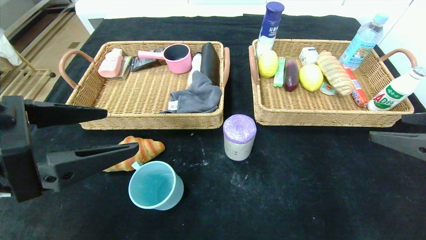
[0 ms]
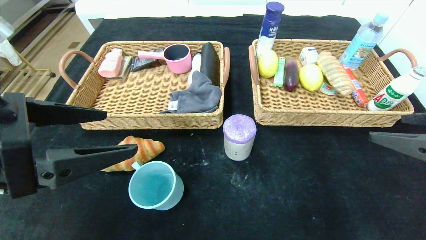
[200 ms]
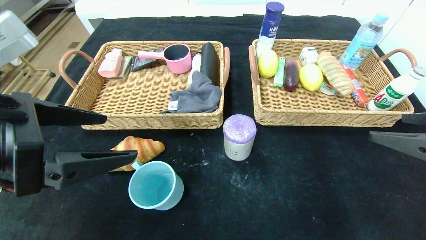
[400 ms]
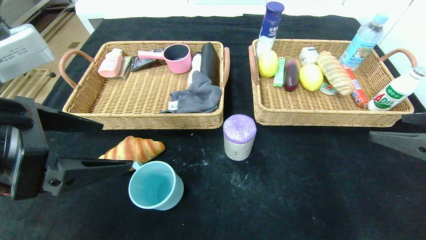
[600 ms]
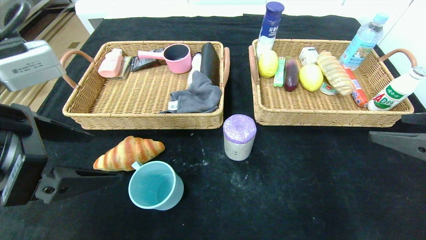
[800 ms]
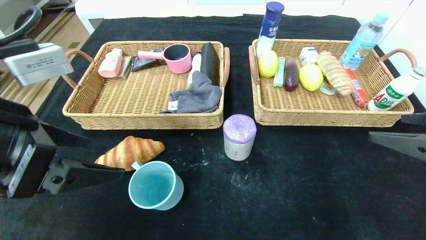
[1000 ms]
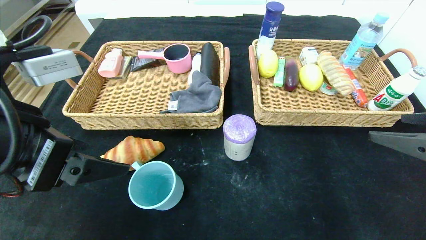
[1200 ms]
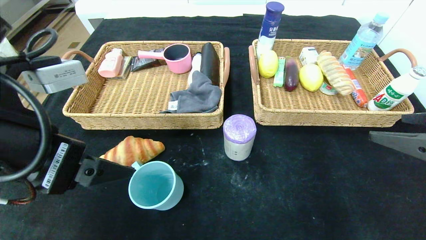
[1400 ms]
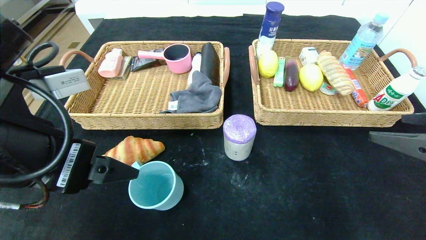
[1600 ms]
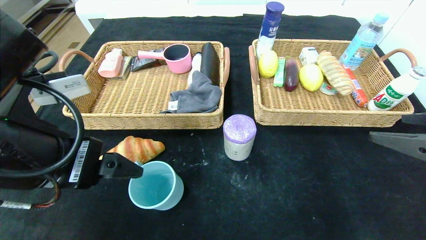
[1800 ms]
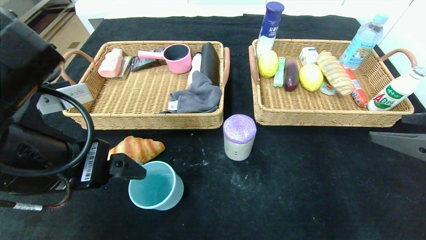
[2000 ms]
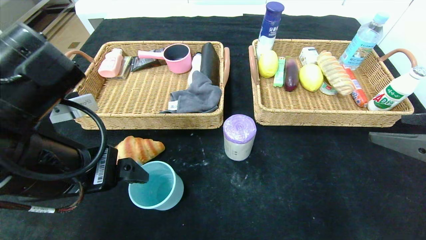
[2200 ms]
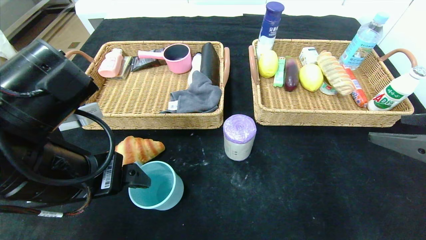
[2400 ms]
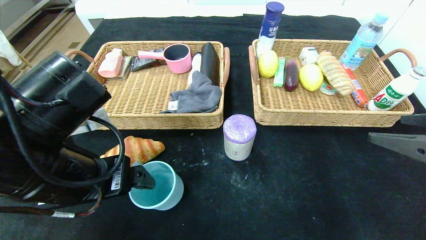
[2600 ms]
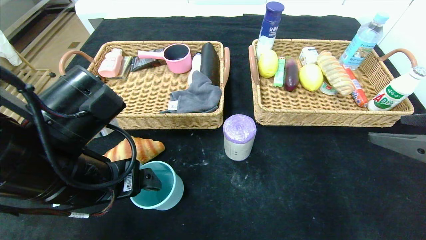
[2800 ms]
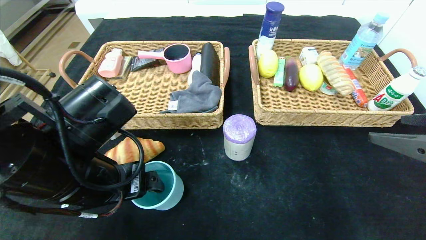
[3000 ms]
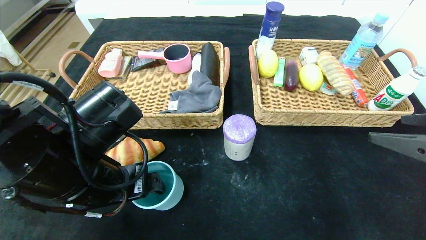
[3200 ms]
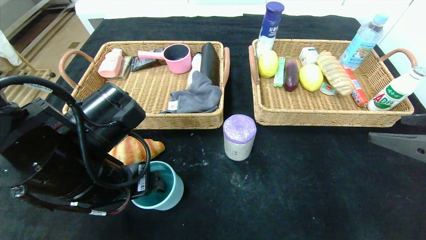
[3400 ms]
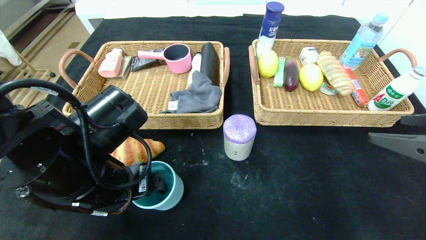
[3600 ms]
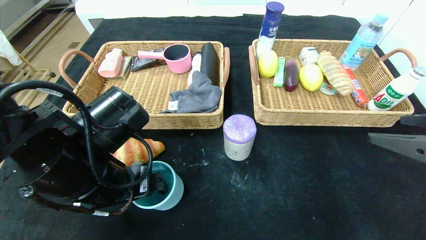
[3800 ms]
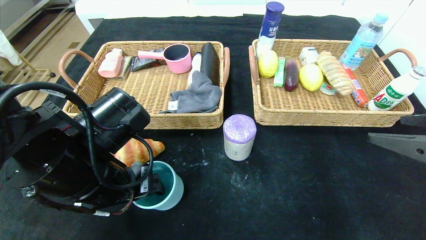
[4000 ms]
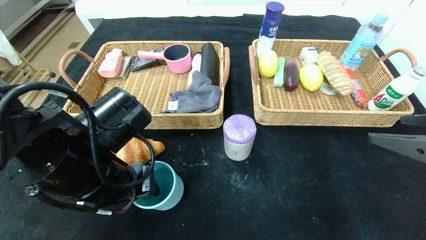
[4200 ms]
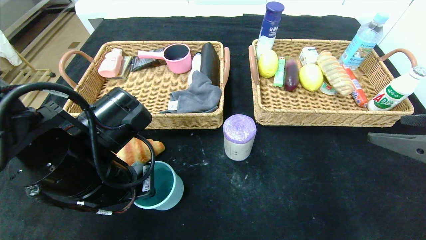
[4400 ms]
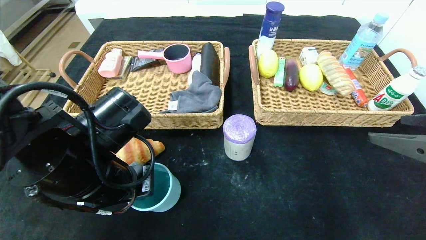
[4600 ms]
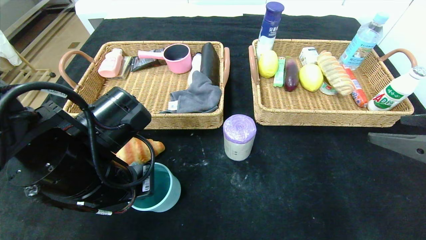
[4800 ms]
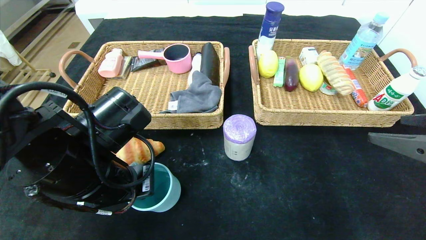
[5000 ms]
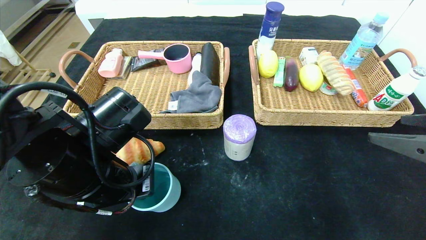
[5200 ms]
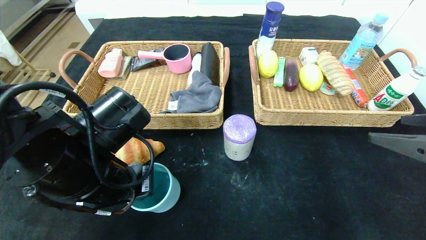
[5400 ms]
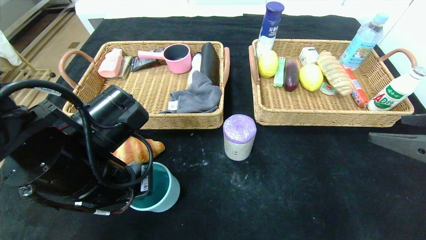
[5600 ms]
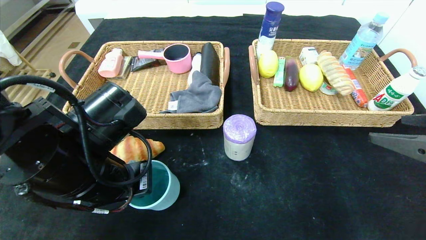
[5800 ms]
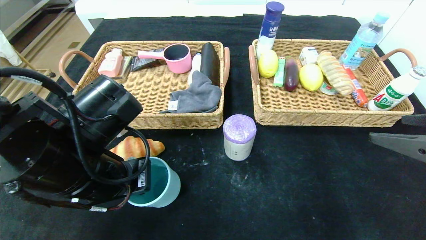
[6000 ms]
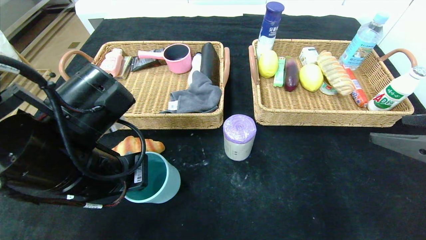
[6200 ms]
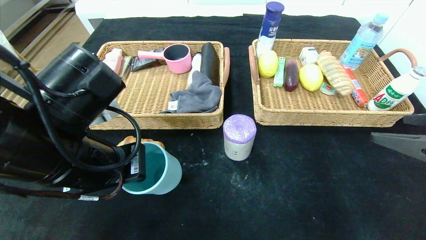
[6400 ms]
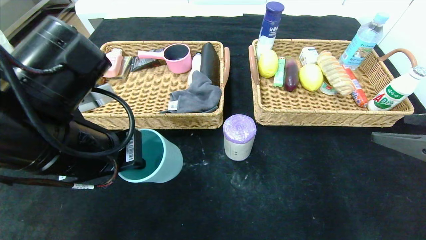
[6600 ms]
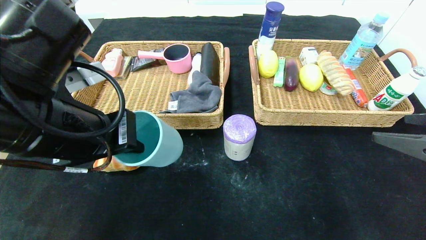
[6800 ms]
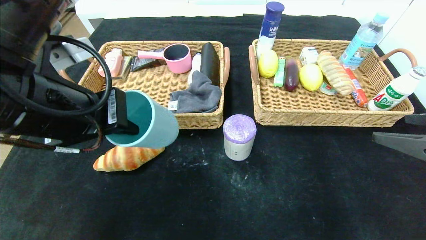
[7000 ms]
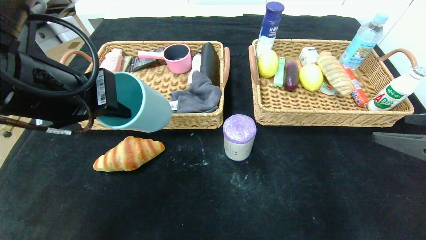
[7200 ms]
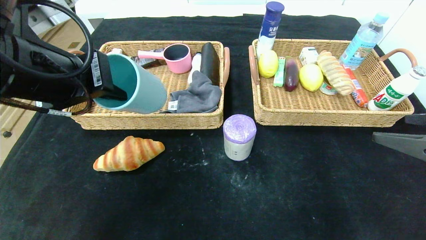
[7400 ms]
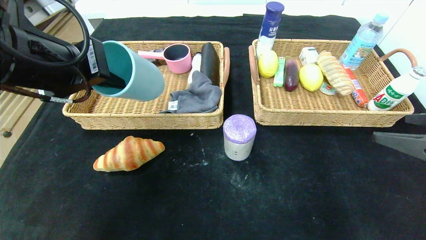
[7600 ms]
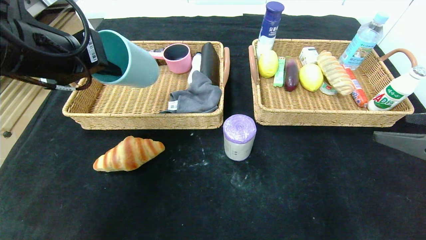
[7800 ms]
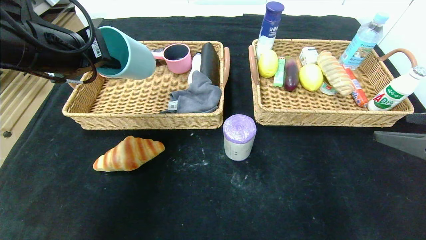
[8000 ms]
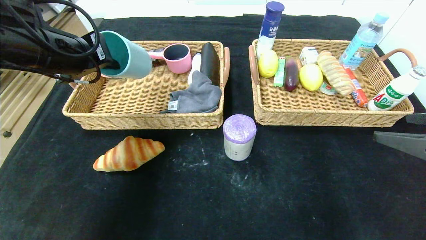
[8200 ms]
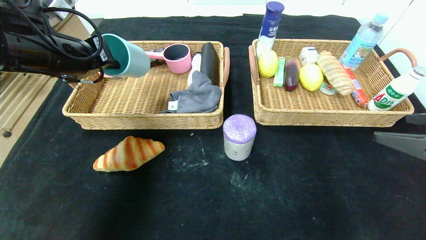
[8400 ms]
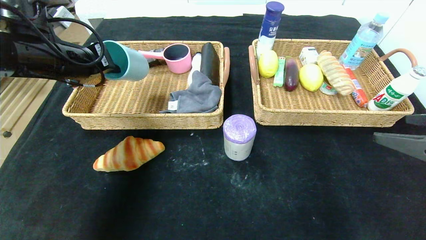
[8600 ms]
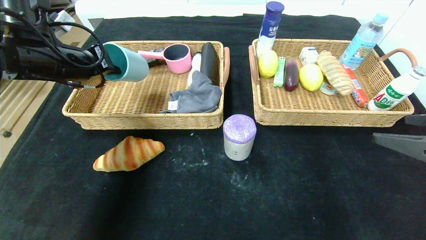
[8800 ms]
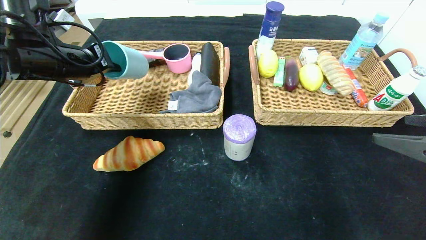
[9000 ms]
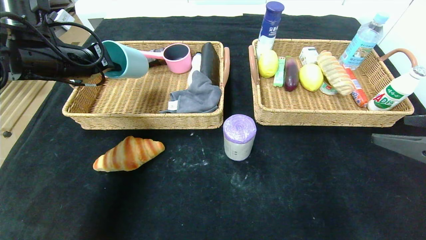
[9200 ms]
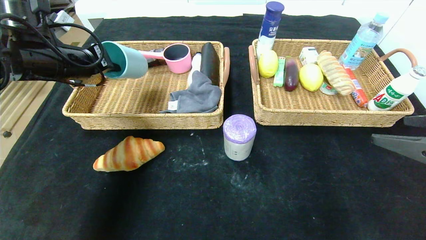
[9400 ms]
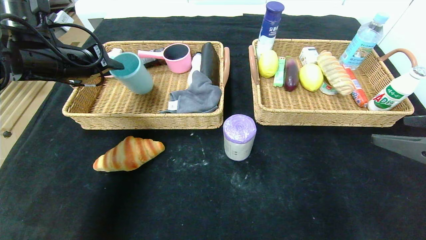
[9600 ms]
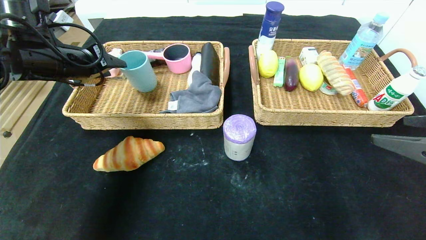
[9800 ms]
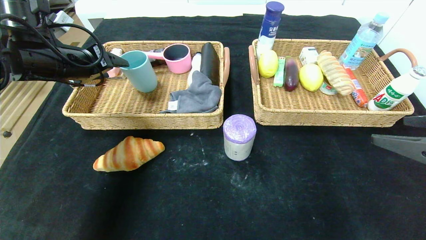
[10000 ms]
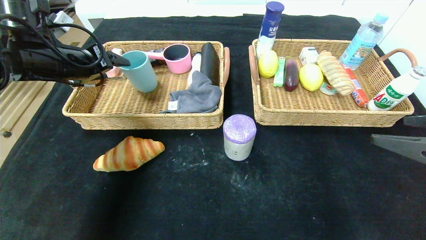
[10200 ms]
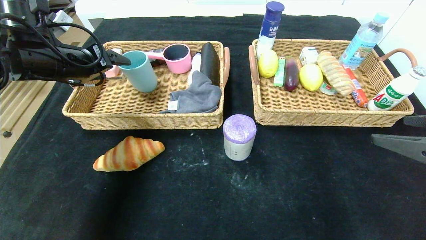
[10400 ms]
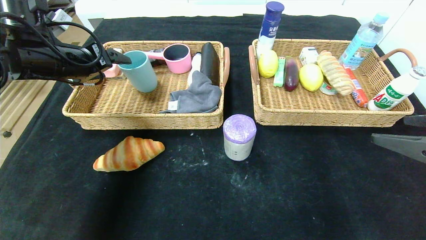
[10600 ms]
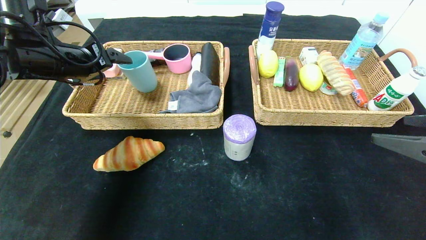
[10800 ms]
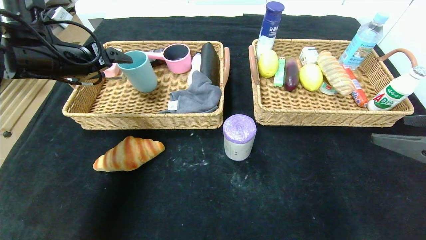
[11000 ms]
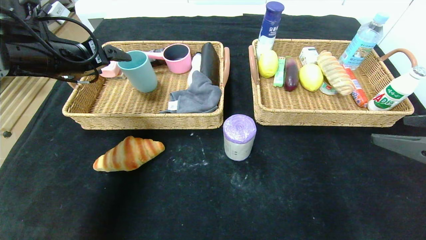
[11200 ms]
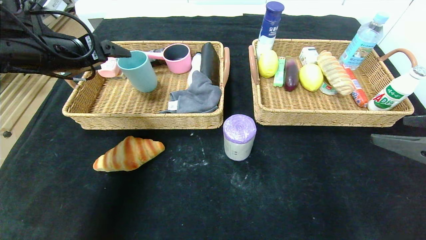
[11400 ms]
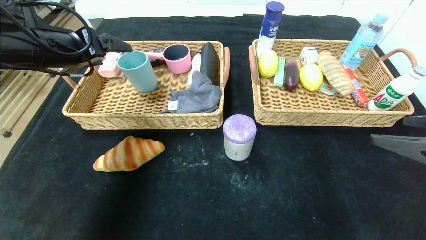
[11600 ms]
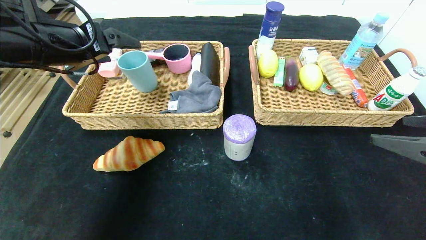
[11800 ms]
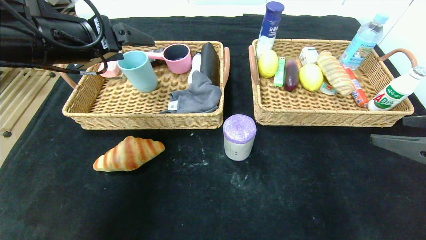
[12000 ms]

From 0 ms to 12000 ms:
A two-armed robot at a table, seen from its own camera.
Step, from 0 ms to 10400 ms: Grasp the blue cup and put it in the left basket.
From 1600 ms to 3000 ms: The left gripper heads downward, covering about 5 cm.
From 3000 ms to 4400 ms: The left gripper closes up.
From 4400 ms to 6000 ms: The grippers make only small movements.
From 6000 ms to 7600 ms: The left gripper travels upward by some 10 cm.
From 7600 ms to 9000 ms: The left gripper heads forward and to the left, covering approximately 15 cm.
From 9000 ms to 10400 ms: The left gripper opens its fingers.
From 10400 ms to 12000 ms: The left gripper goes about 10 cm backward and to the right.

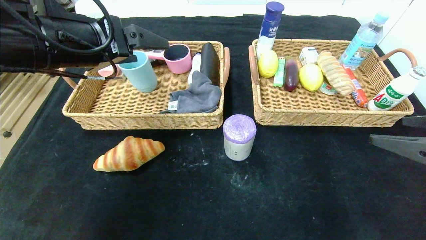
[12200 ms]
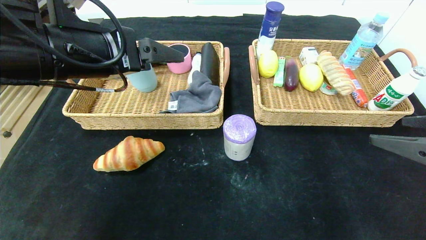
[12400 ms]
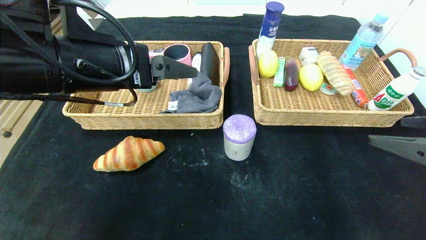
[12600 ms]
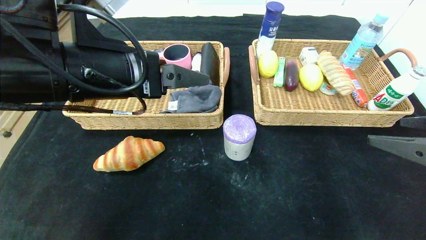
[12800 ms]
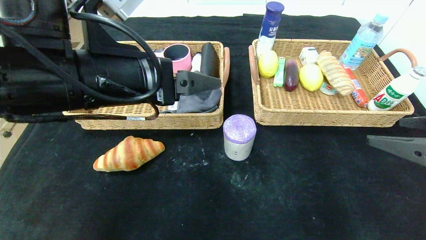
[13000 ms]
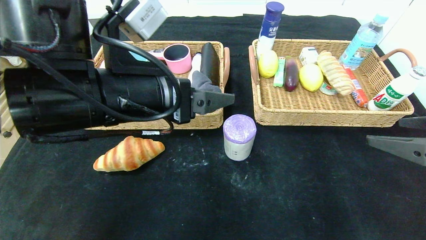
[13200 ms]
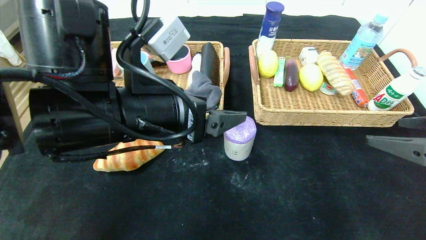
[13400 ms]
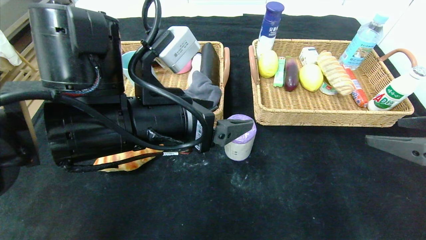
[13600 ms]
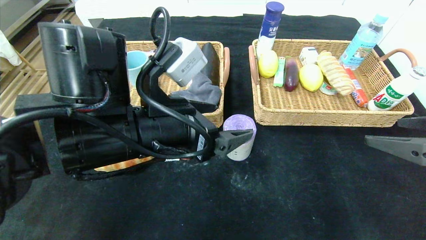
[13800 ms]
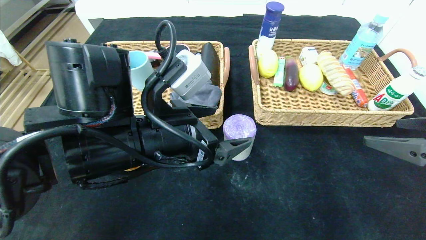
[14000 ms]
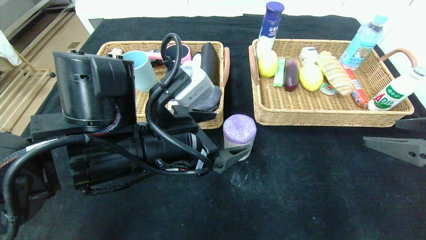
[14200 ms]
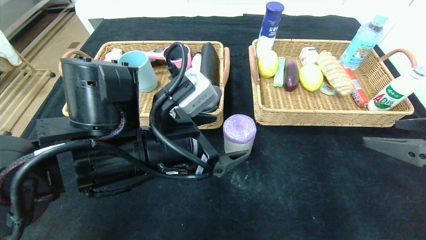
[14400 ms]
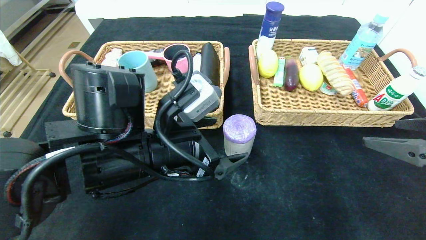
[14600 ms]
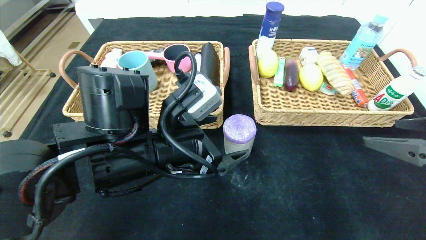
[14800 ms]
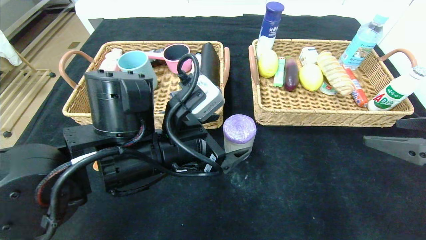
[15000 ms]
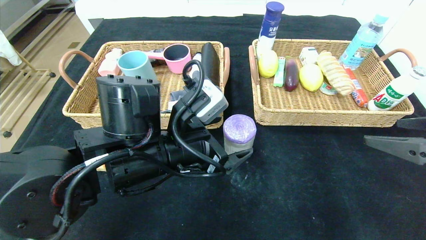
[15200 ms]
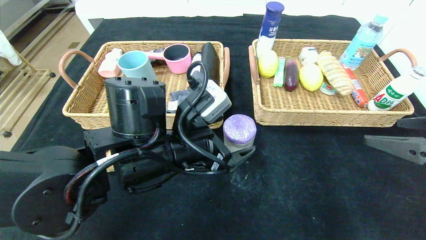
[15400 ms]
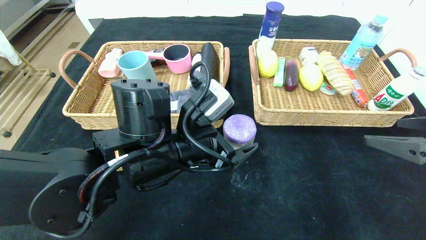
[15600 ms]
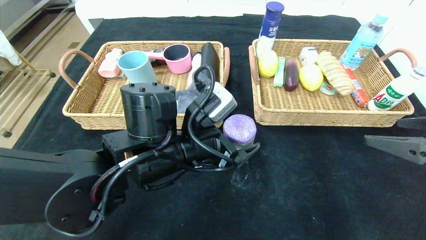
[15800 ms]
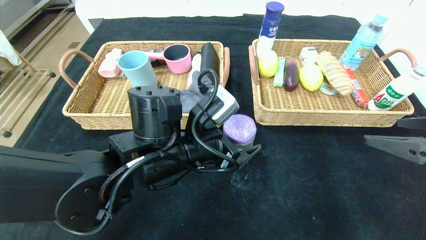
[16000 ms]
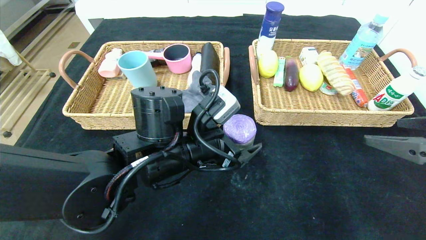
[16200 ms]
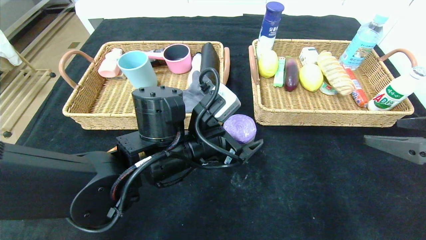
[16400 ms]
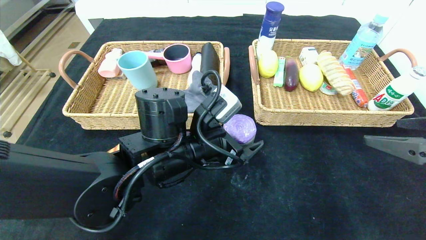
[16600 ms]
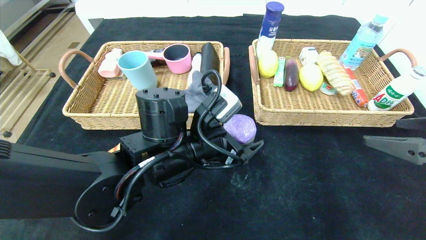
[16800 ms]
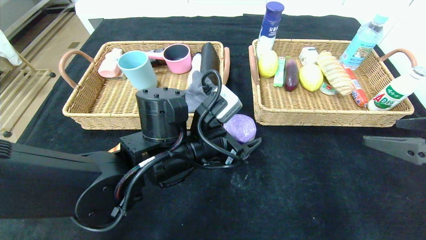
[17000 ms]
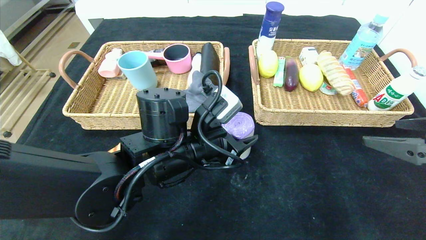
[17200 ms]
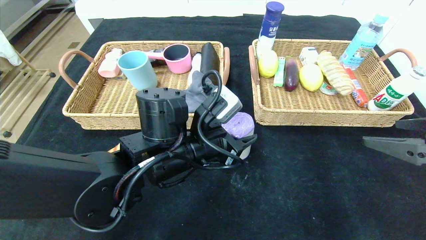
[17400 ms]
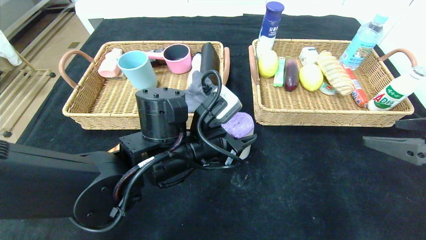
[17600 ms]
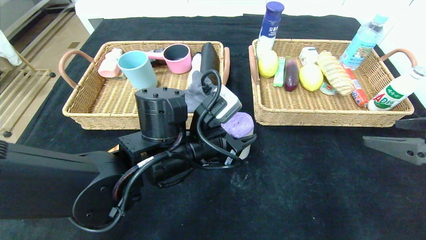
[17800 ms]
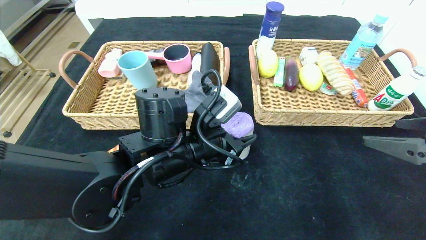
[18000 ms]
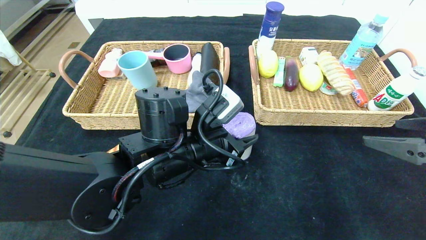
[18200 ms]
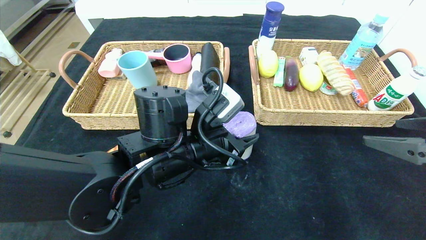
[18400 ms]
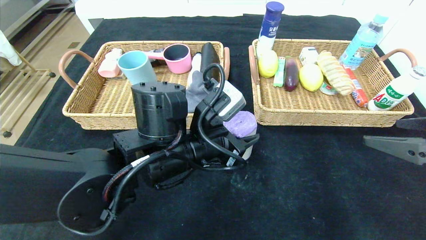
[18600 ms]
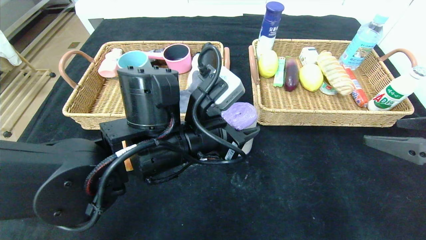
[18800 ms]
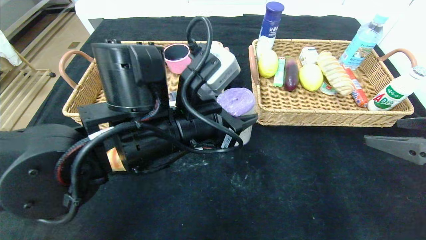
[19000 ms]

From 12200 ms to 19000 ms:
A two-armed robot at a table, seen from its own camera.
From 12200 ms to 13600 ms: The left gripper goes some 15 cm to the right and downward.
From 13600 ms to 15000 ms: The left gripper moves approximately 5 cm.
From 15000 ms to 16200 ms: The grippers make only small movements.
From 16200 ms to 17600 ms: The left gripper closes.
From 17600 ms to 19000 ms: The left gripper travels upward by about 5 cm.
